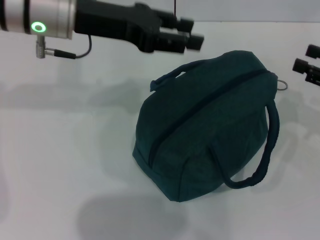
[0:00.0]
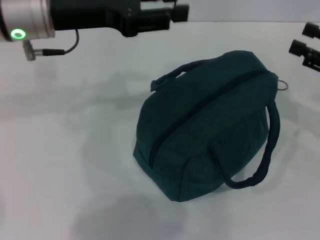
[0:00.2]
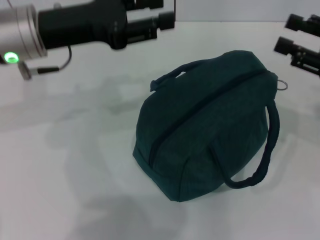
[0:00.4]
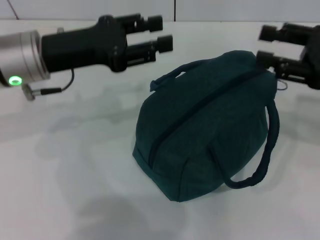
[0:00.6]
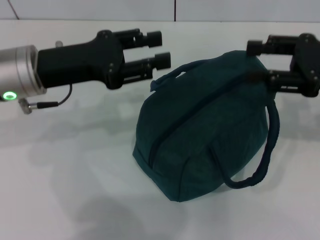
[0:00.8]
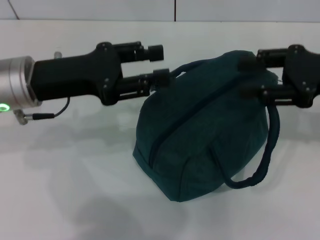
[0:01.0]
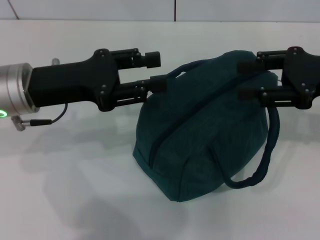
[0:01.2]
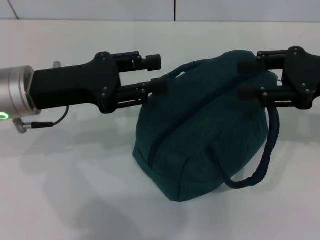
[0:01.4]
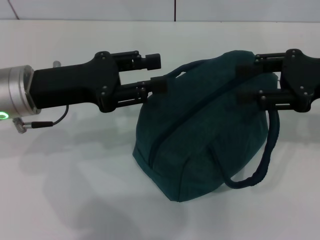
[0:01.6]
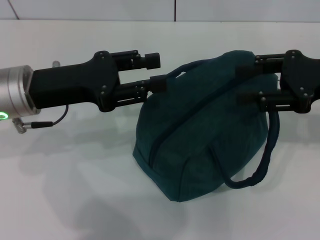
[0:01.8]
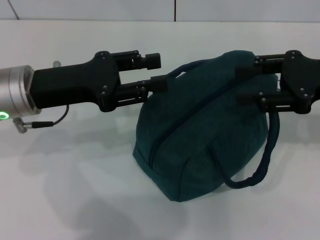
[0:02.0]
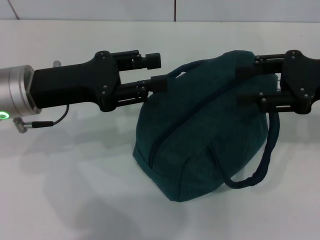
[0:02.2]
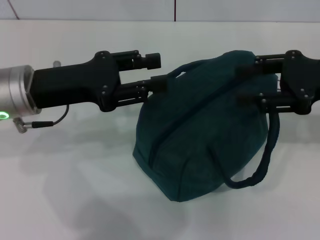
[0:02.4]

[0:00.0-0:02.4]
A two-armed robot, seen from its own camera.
0:00.0 to 0:01.2: The left gripper moves backward, downward and to the left, approximately 10 cm; the right gripper is displaced to the left and upward by some 10 cm.
0:01.2 to 0:02.4: Both grippers stay about where they are.

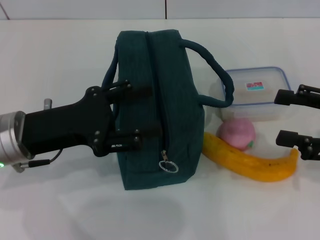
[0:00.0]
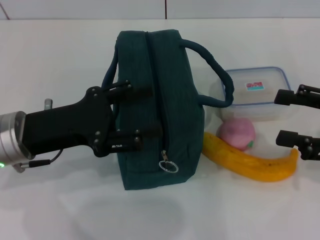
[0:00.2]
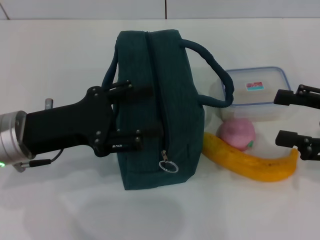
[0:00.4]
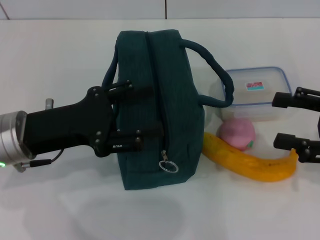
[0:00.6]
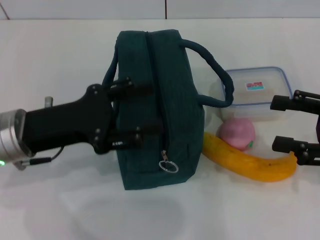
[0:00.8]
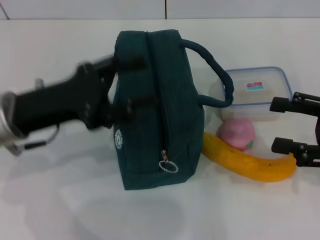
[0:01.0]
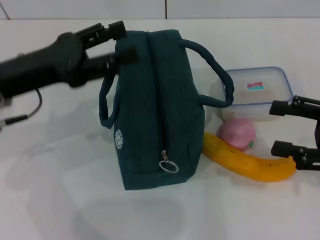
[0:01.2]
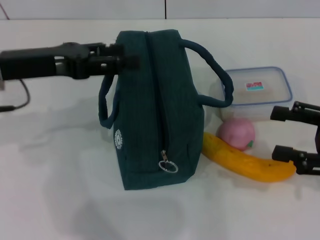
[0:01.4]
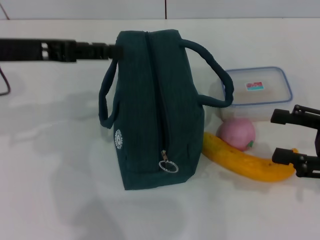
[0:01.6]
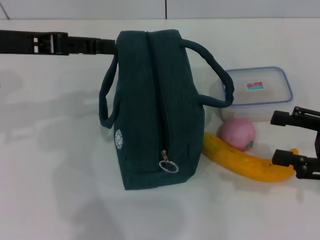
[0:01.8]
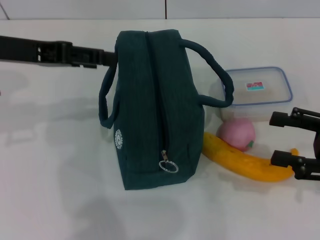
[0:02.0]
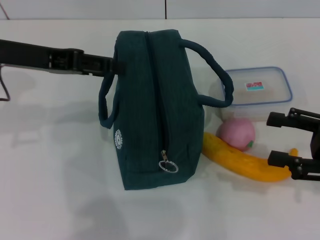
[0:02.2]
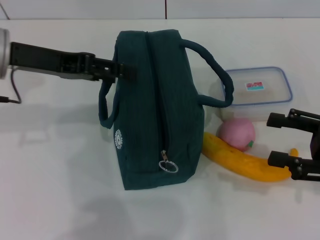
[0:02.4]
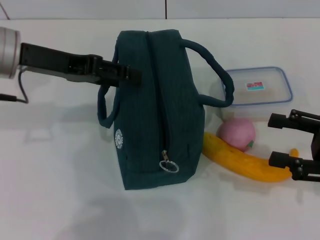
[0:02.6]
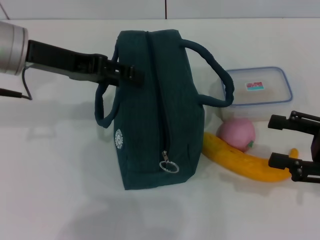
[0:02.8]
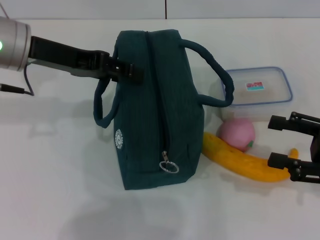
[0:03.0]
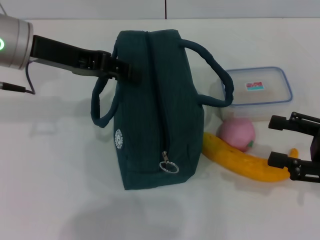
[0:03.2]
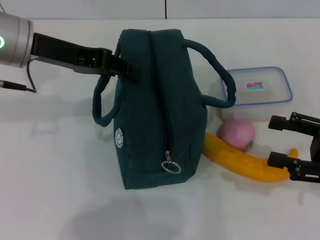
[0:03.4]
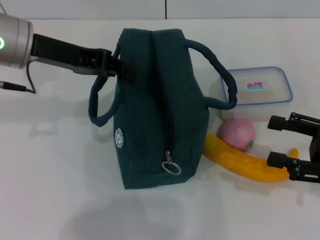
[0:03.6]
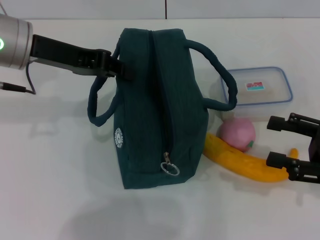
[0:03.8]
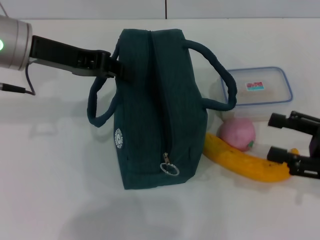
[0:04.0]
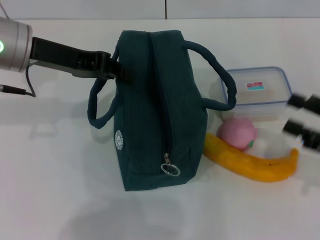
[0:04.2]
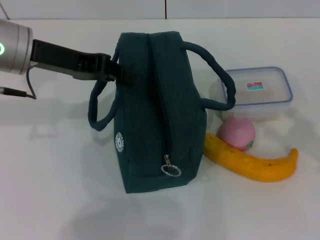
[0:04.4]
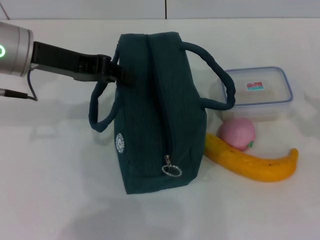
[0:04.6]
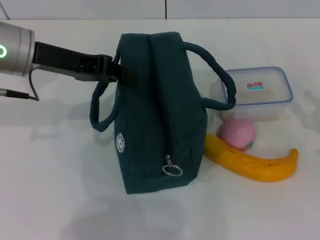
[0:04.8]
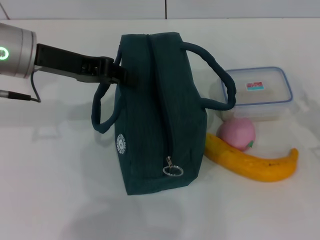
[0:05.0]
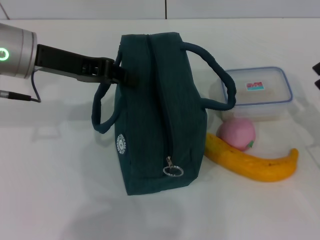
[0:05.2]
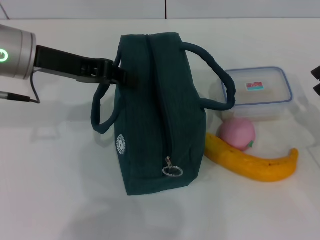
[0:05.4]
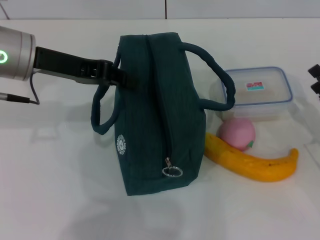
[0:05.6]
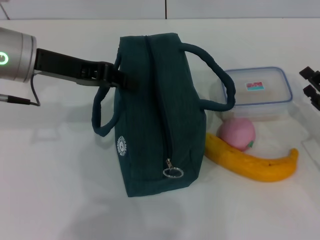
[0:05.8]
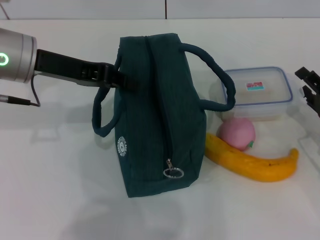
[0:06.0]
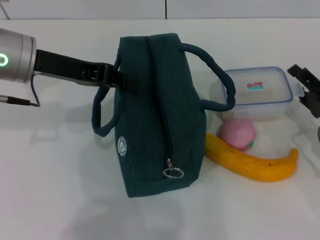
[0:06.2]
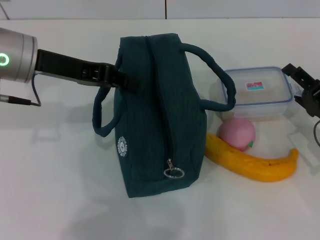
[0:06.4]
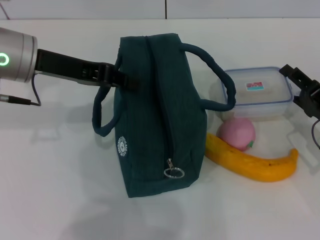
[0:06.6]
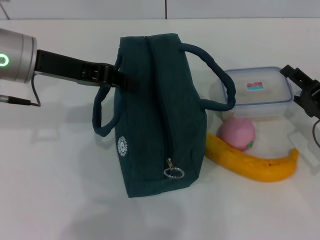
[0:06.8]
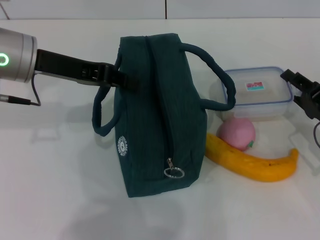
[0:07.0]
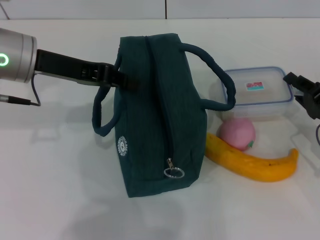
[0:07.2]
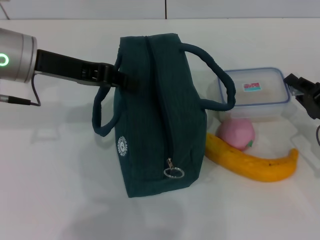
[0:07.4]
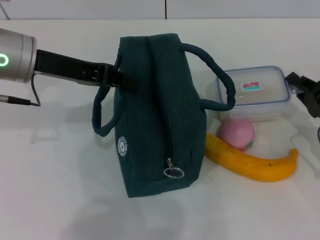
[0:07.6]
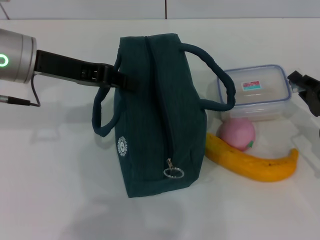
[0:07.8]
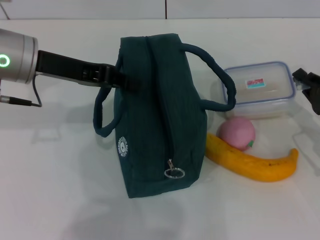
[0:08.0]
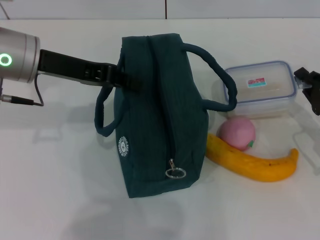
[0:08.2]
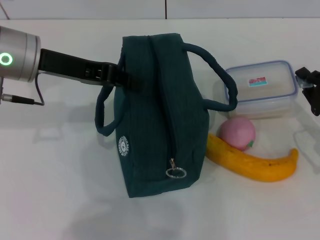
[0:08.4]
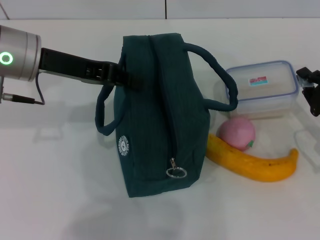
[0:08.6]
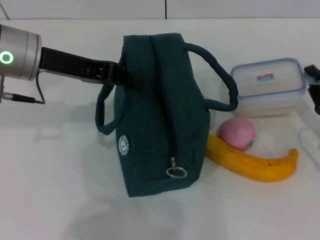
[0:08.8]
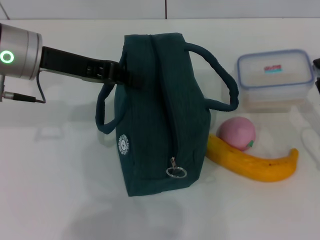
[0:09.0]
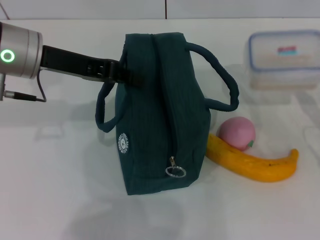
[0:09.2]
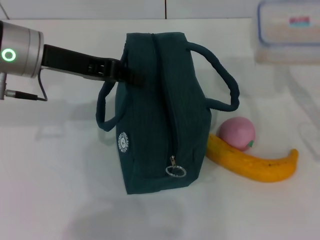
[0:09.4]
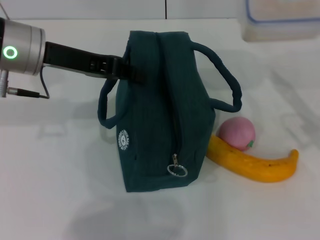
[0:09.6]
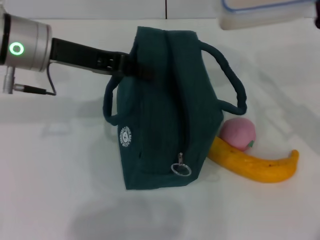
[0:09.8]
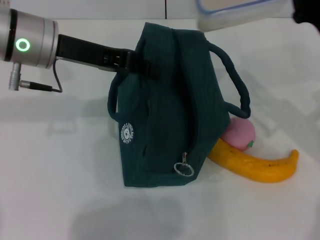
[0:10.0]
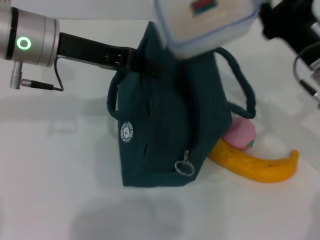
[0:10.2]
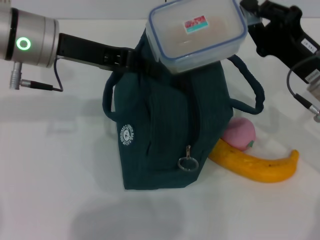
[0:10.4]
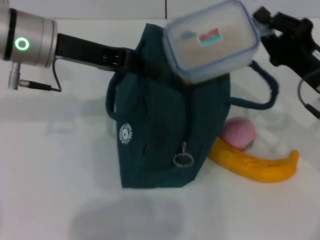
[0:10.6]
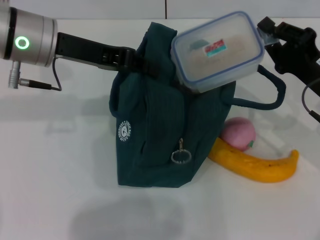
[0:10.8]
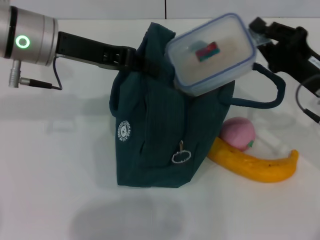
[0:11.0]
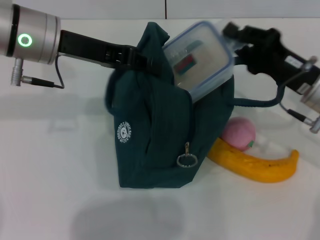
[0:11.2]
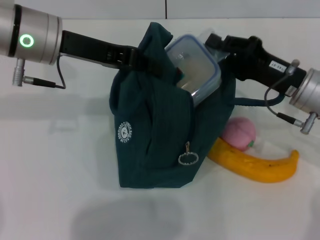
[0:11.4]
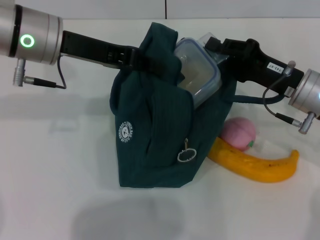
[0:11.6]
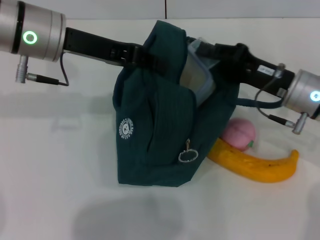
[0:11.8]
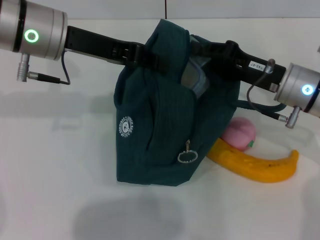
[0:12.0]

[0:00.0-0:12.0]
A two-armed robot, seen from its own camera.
Step, 0:00.0 to 0:04.2: Hold the lunch bag with your left hand.
Step, 0:04.4 to 0:08.4: Pick up the lunch box with your right hand.
0:00.0 to 0:01.6: The left gripper is displaced upward and forward by approximately 10 cm.
0:01.6 to 0:03.0: The left gripper ends up about 5 cm from where it was.
0:03.0 to 0:04.4: The left gripper closes up.
0:04.4 to 0:06.0: The right gripper moves downward, approximately 5 cm.
0:06.0 to 0:07.6: The right gripper closes its fingers.
0:09.0 to 0:10.4: The right gripper goes roughly 10 cm to the left and upward.

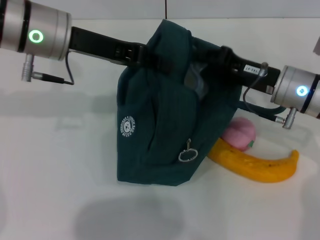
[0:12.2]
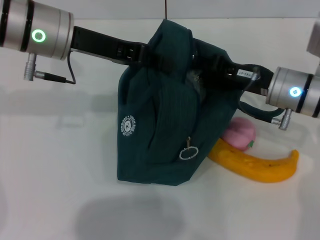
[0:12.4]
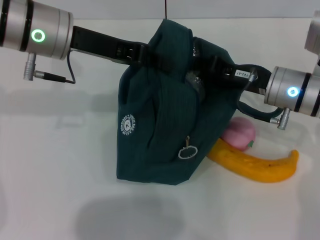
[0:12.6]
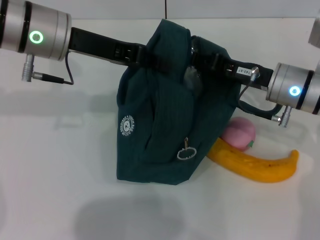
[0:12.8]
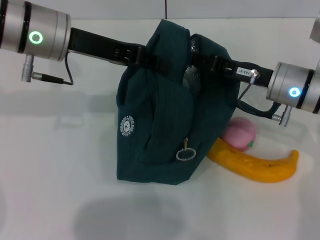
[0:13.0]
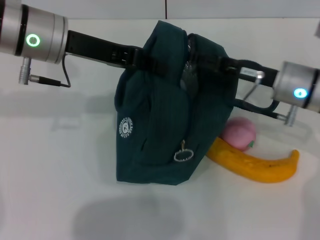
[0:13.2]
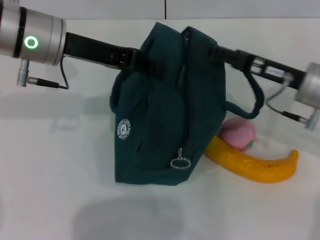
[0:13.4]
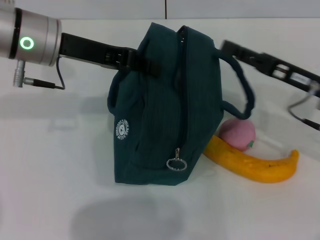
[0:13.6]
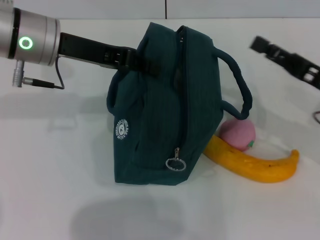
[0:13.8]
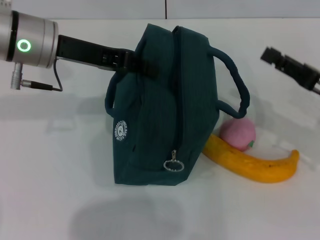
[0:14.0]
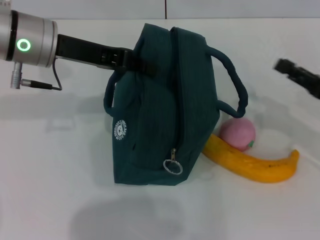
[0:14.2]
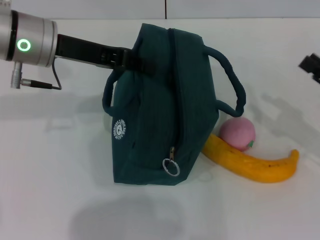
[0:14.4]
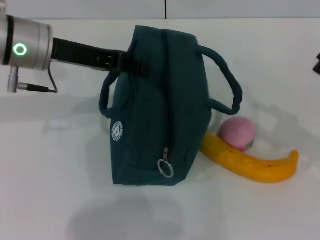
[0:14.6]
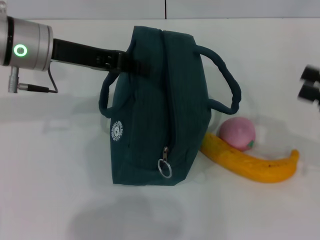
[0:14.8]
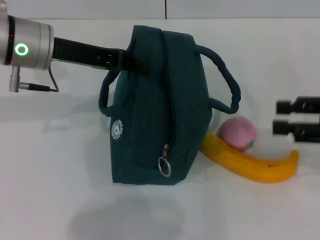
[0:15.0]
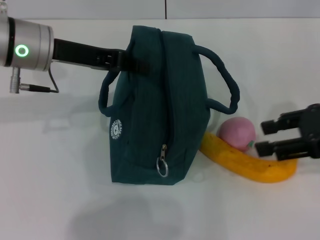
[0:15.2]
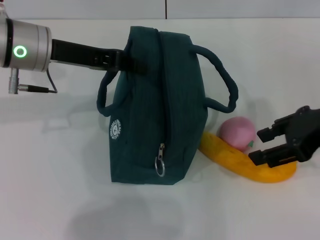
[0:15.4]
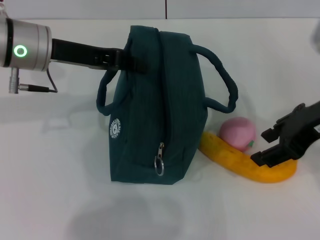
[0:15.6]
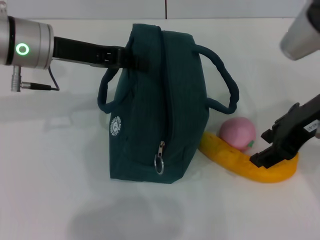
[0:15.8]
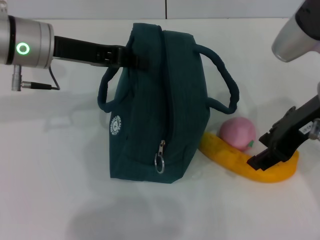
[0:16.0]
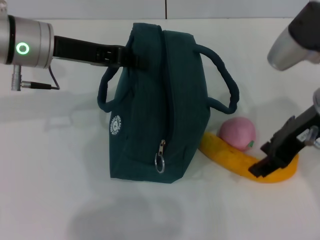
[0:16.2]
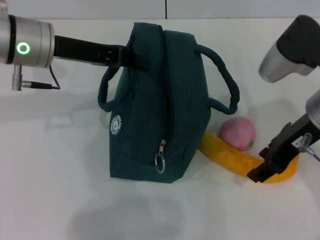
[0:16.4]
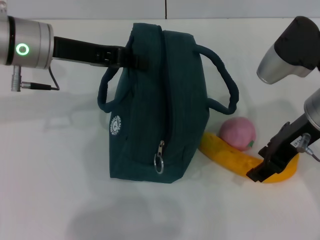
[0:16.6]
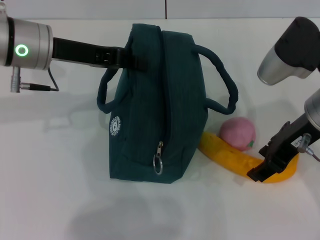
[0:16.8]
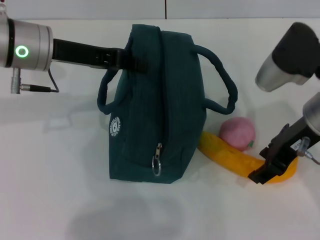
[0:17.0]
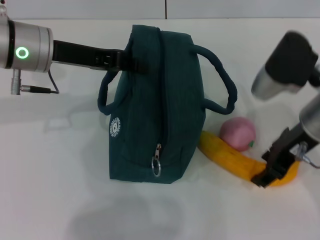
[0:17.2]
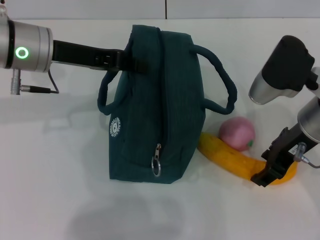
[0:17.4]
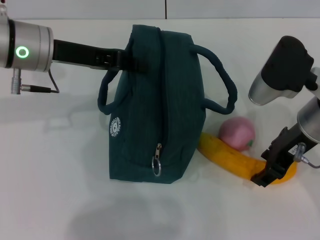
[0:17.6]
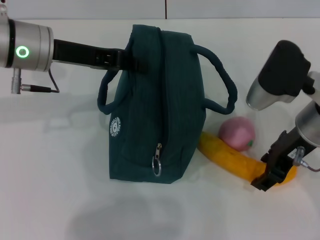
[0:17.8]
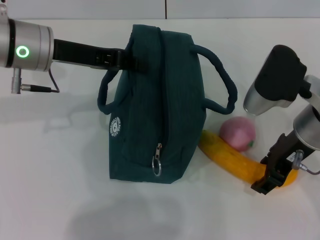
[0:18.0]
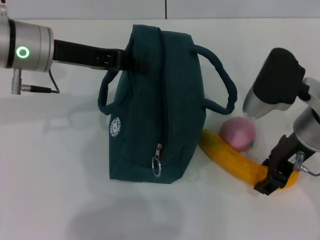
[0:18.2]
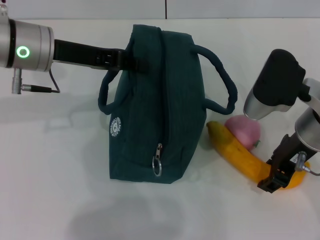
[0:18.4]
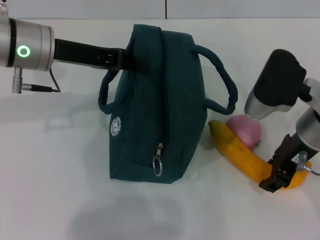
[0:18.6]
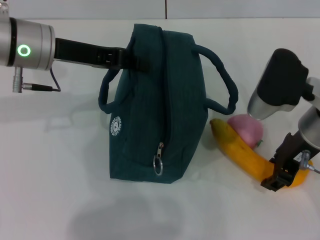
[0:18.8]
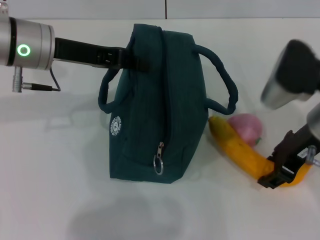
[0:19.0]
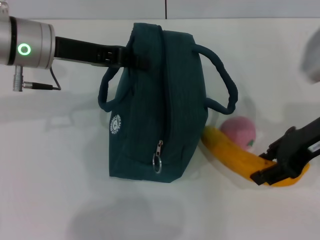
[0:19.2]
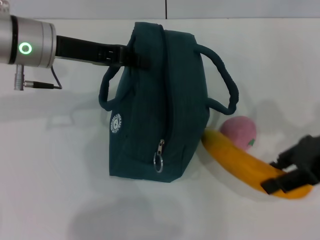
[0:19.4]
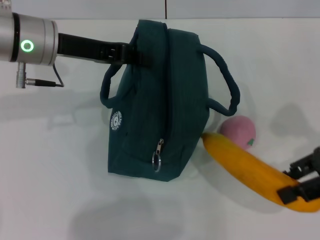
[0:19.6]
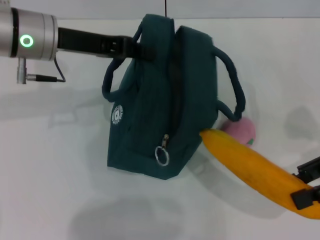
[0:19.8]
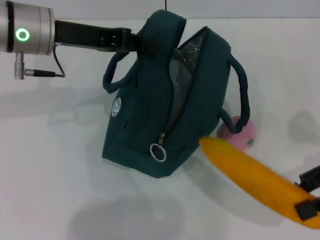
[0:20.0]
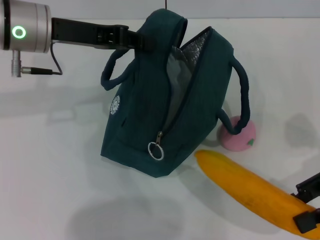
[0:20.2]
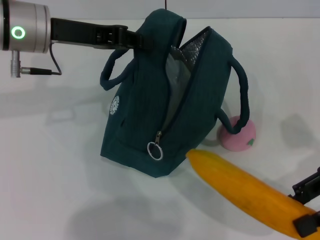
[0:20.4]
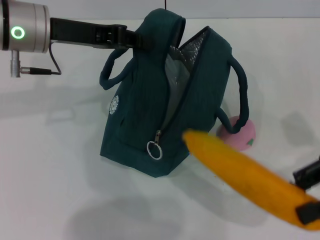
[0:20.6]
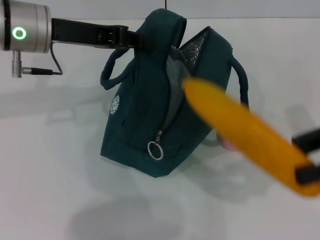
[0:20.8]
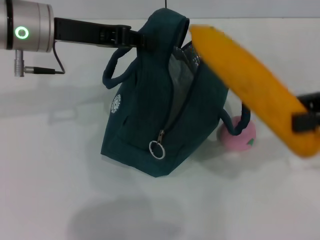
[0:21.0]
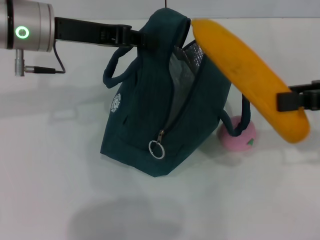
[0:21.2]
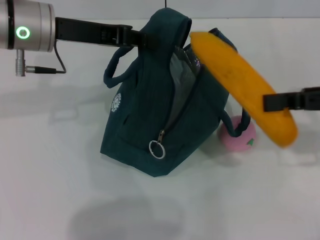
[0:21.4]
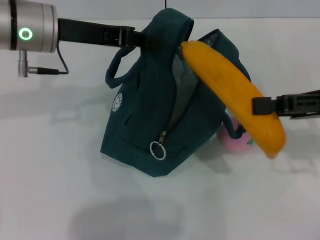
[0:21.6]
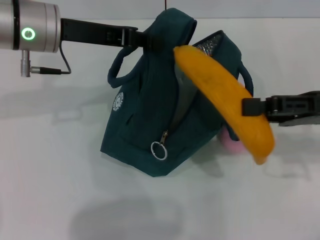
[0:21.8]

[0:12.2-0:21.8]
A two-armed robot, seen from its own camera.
Step, 0:13.4 to 0:18.8: Take the banana with your right hand.
0:12.2 to 0:13.8: The right gripper is displaced to the right by some 10 cm, and opens.
0:13.8 to 0:15.4: The right gripper moves upward, approximately 10 cm.
0:15.4 to 0:17.0: The right gripper is displaced to the left by about 5 cm.
0:17.0 to 0:18.6: The grippers stay close to where they were, moving slightly.
0:18.6 to 0:20.2: The right gripper moves to the right, approximately 15 cm.
